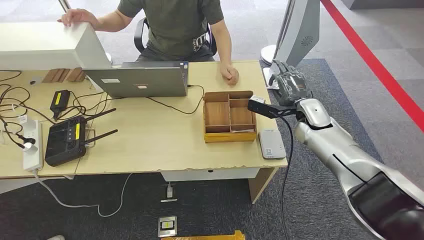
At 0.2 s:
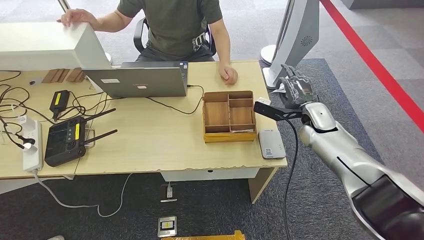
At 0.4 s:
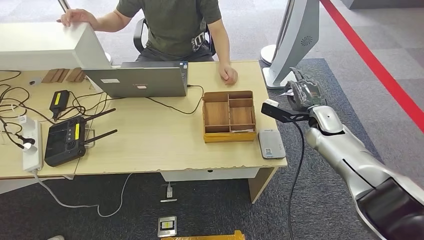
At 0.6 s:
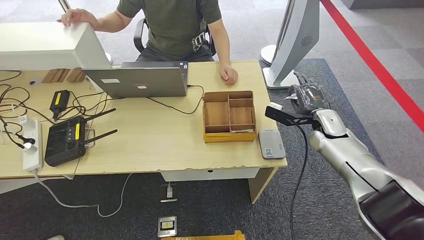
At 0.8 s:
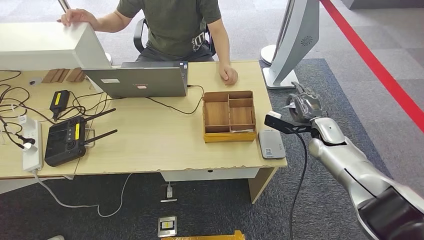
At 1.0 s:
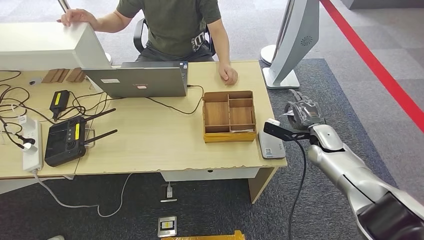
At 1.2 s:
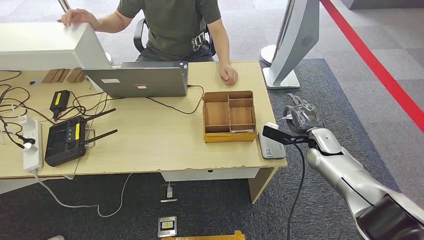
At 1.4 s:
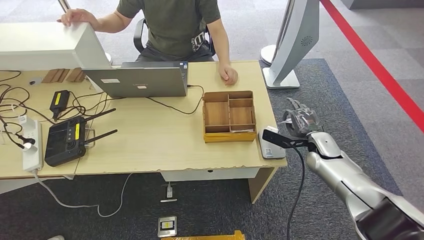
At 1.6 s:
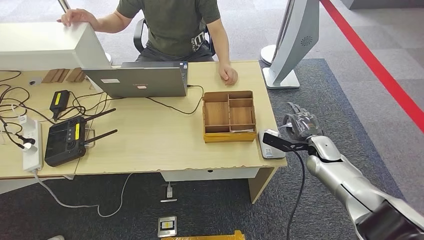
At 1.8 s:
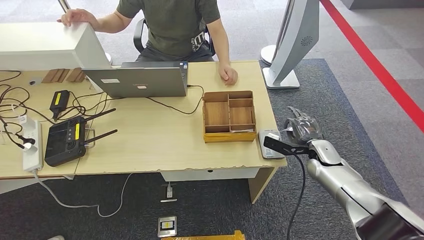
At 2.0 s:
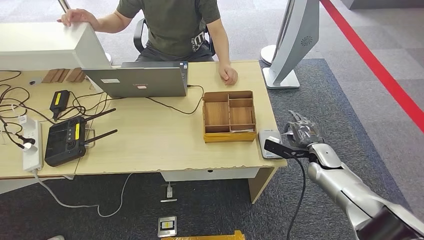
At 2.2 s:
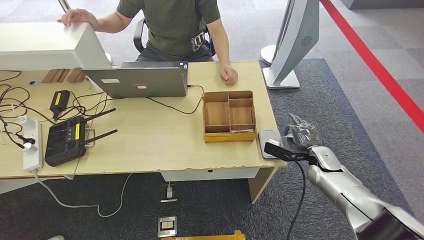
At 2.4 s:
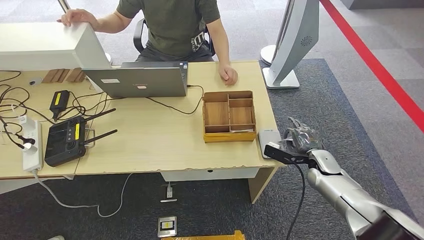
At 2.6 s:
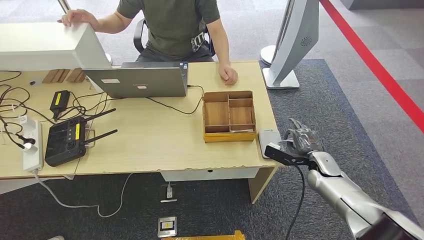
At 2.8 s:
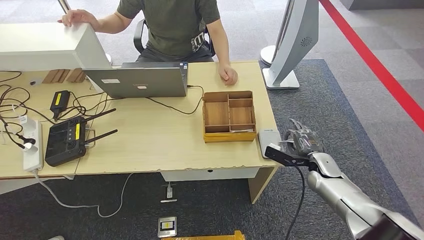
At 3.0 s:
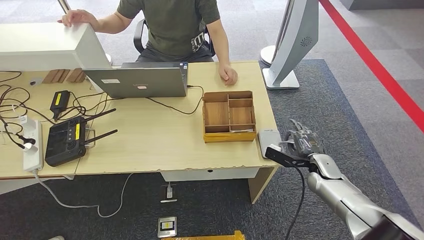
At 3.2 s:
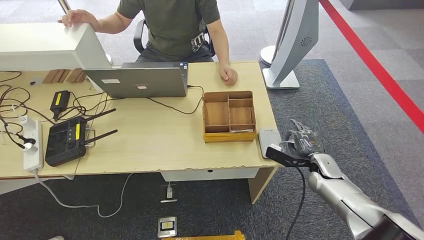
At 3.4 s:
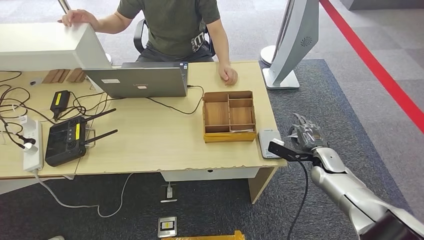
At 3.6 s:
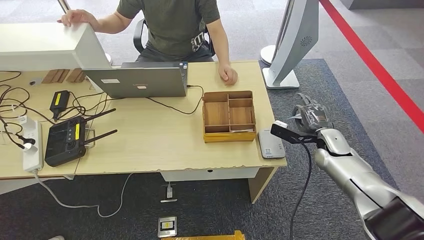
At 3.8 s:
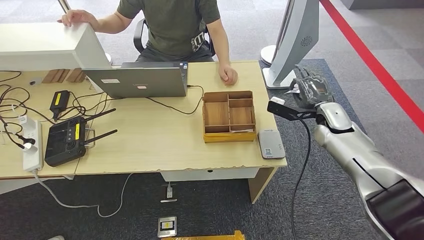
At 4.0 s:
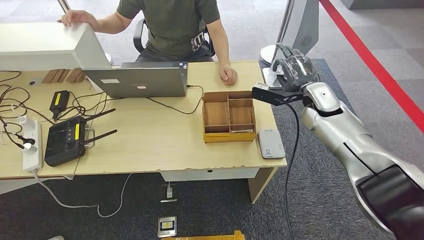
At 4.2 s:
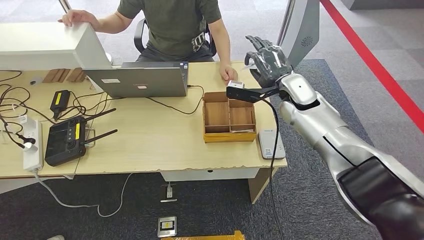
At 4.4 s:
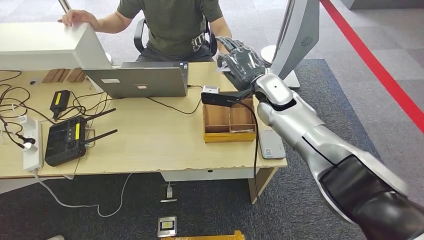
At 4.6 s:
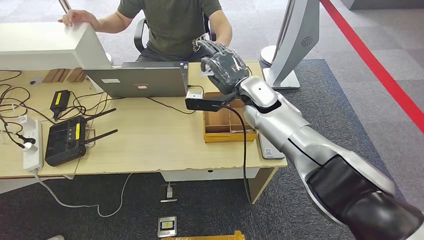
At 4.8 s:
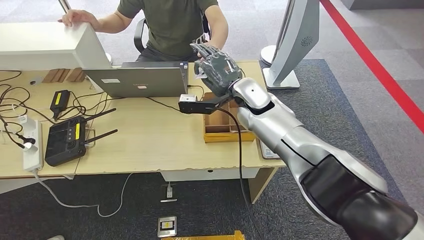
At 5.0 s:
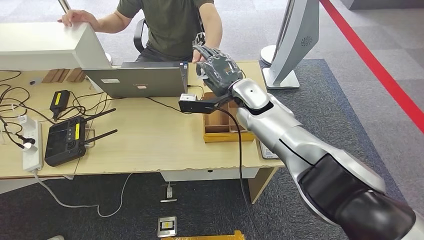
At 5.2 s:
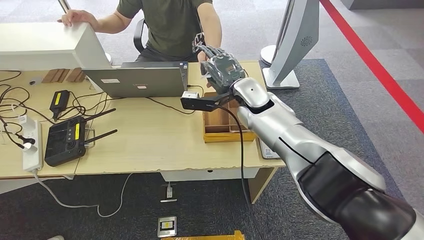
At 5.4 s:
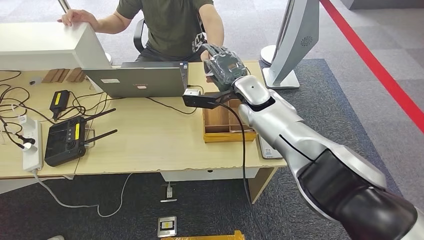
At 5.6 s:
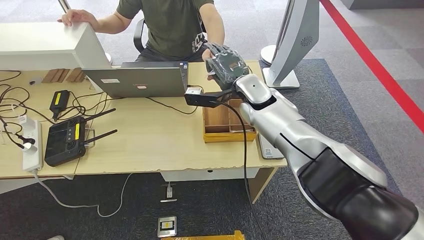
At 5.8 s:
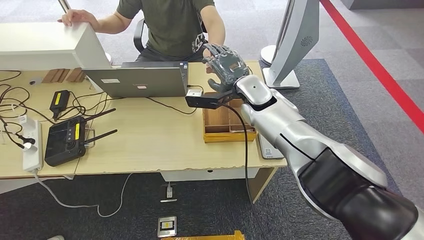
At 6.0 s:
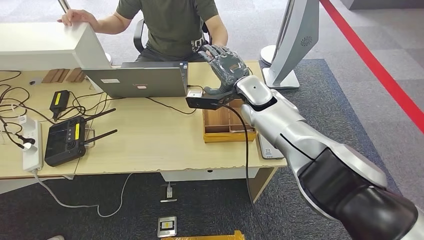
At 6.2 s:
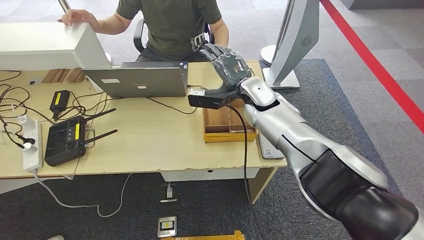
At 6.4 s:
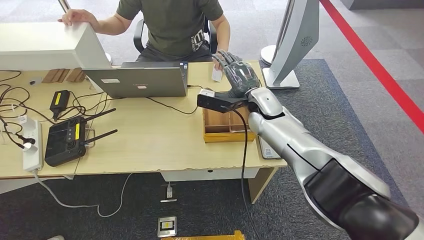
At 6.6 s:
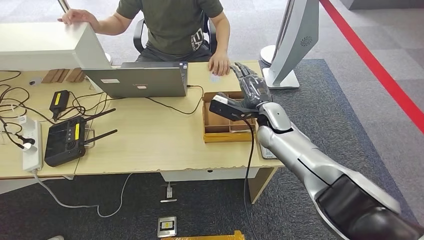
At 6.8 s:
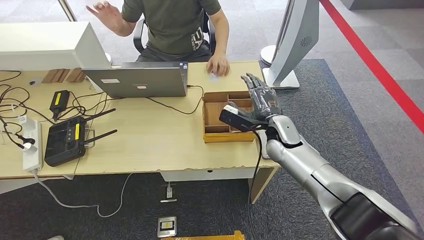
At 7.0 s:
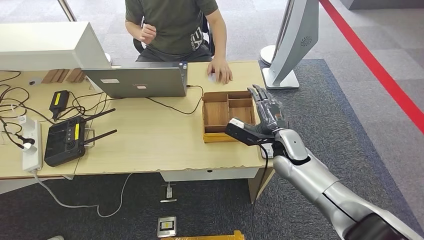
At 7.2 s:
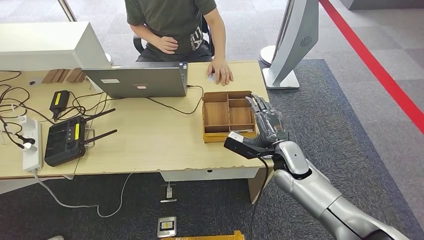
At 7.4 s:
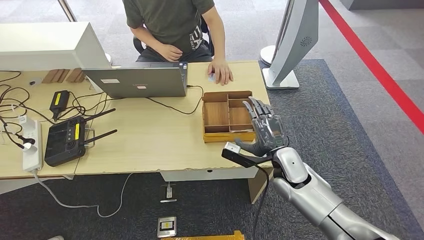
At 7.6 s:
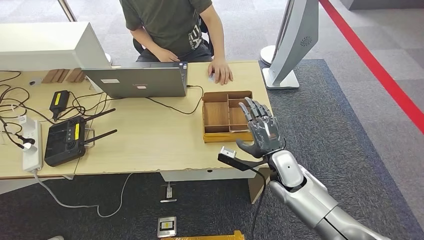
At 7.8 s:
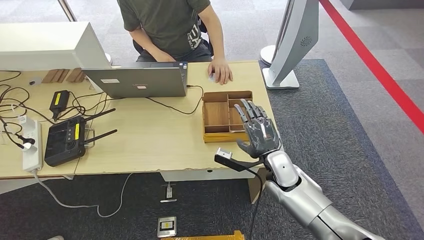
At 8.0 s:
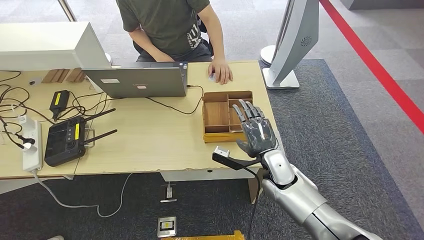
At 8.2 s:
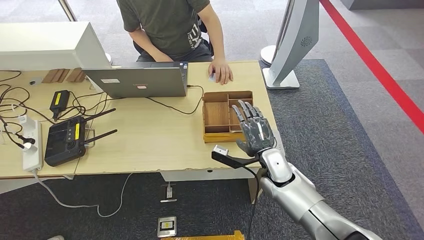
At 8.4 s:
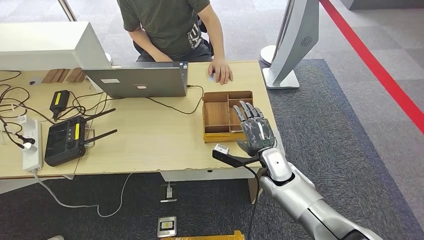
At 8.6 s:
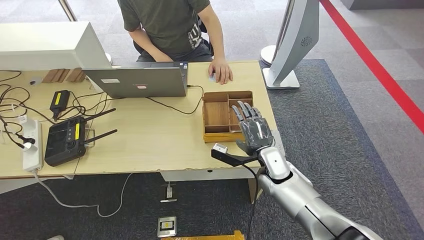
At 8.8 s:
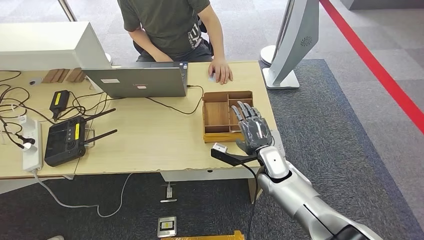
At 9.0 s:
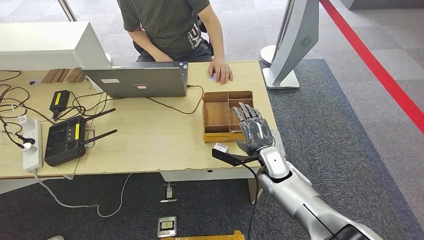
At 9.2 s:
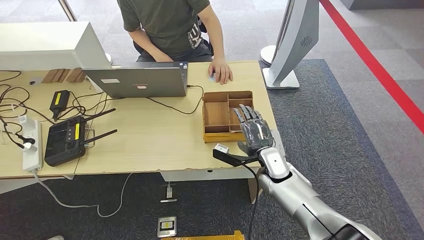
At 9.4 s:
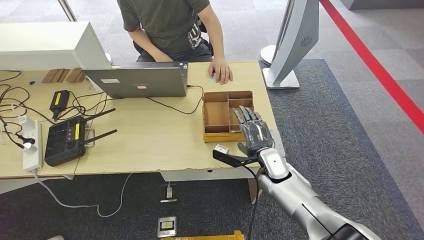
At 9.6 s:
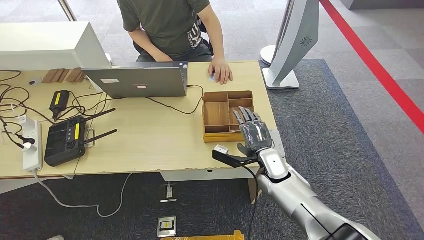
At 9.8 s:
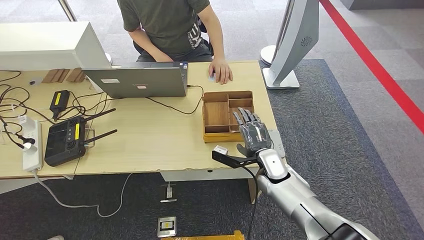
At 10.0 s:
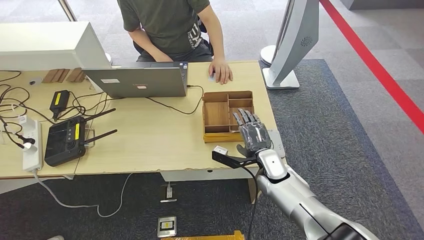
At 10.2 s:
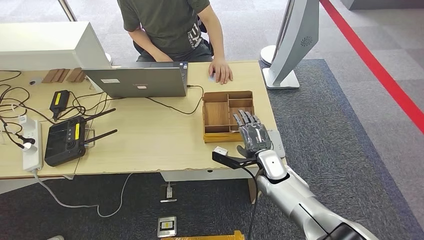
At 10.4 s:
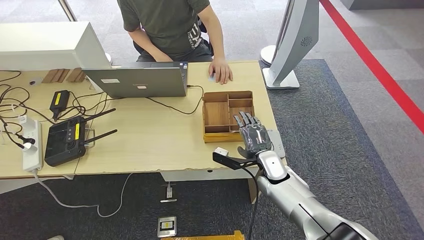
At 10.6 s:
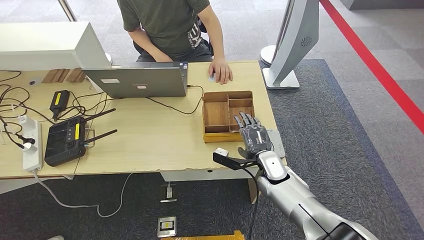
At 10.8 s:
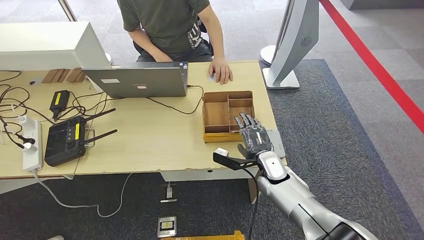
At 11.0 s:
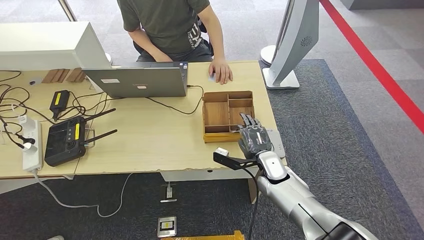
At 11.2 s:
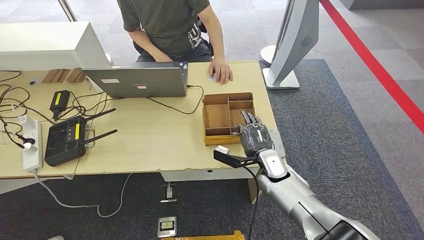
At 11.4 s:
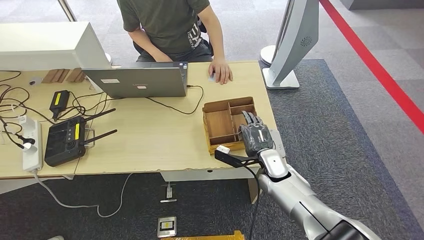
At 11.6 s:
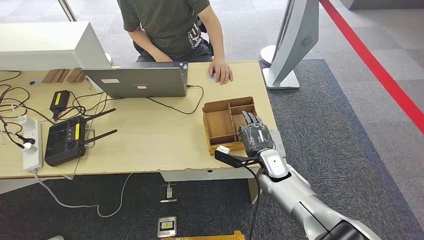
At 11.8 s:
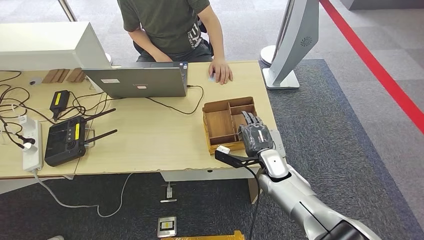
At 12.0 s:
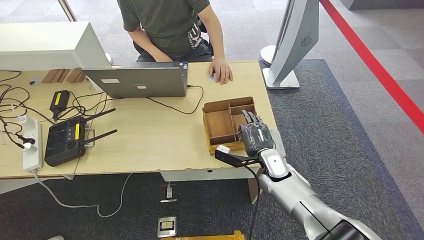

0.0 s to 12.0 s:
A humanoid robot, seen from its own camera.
Step, 0.0 to 1.0 s: Take the ID card from the person's hand.
Step, 1.2 to 2.6 s: Place the ID card on the card reader.
Step, 3.0 to 6.4 s: Hand the ID card to the person.
1.6 to 3.0 s: The right hand moves approximately 5 cm.
3.0 to 4.4 s: The right hand shifts some 30 cm upward, to the left and forward.
6.0 to 7.6 s: The right hand travels downward, backward and to the right by roughly 20 cm.
7.6 to 10.4 s: There are only small adjustments of the hands.
10.4 to 12.0 s: Both hands stay put.

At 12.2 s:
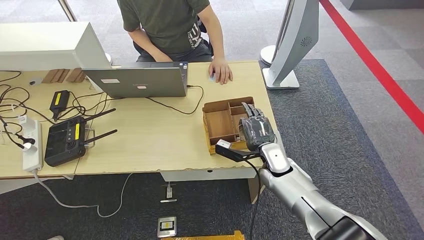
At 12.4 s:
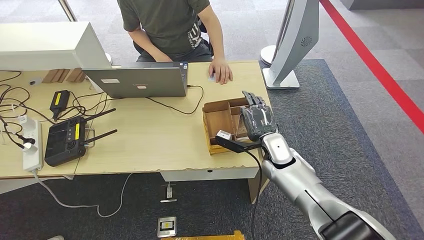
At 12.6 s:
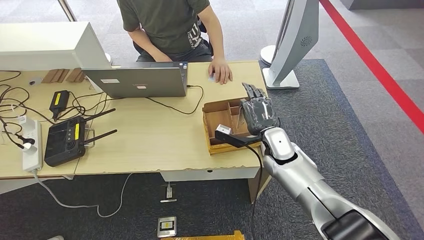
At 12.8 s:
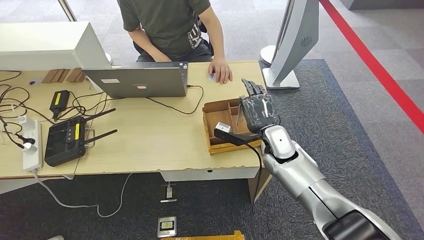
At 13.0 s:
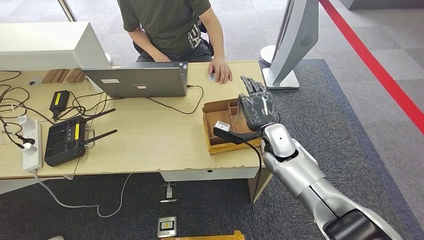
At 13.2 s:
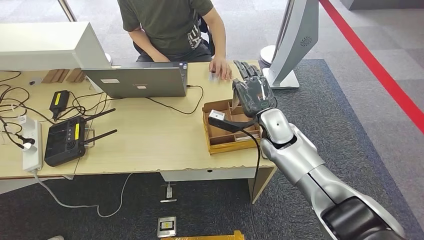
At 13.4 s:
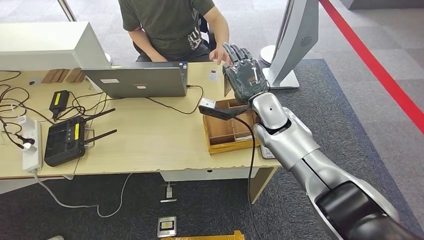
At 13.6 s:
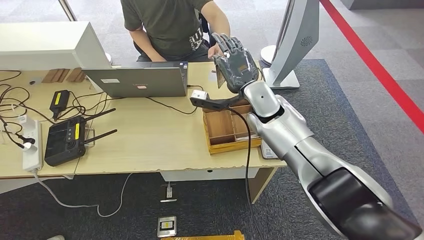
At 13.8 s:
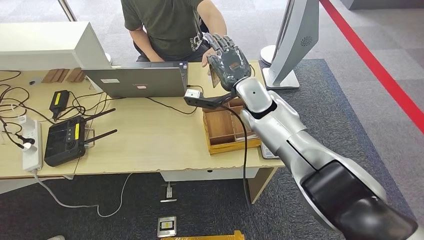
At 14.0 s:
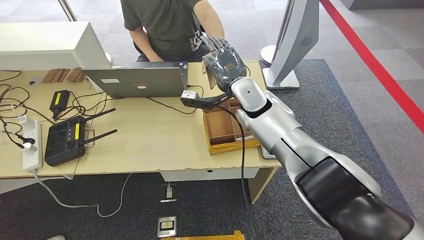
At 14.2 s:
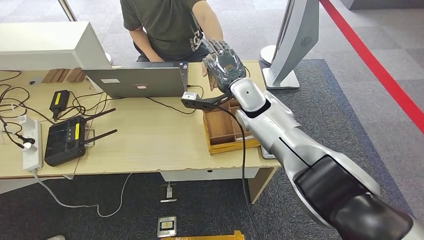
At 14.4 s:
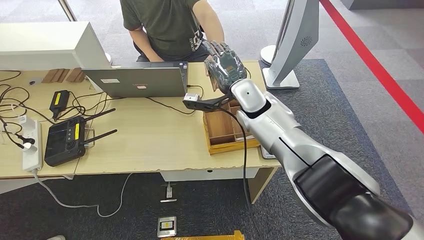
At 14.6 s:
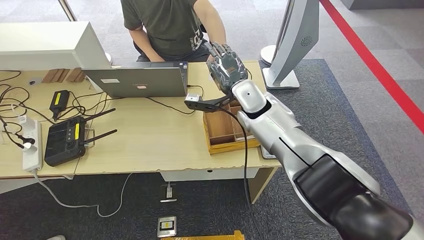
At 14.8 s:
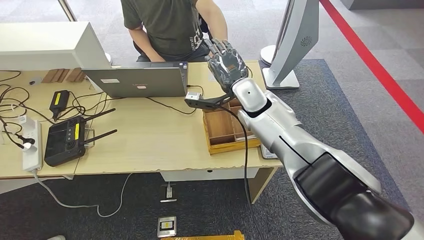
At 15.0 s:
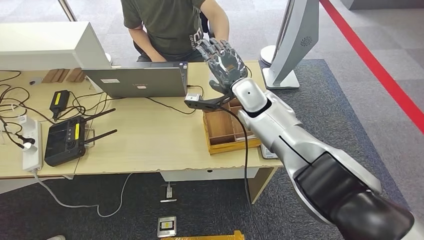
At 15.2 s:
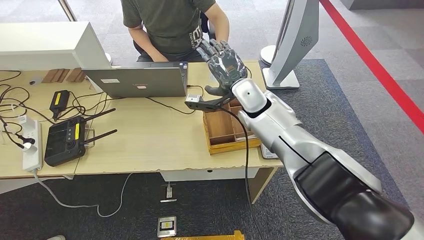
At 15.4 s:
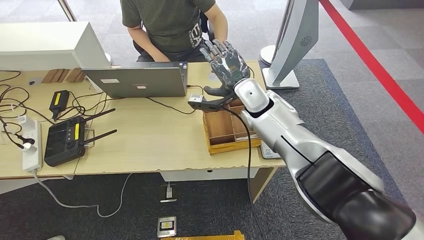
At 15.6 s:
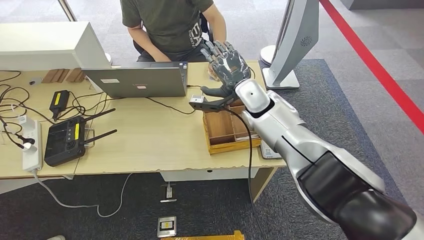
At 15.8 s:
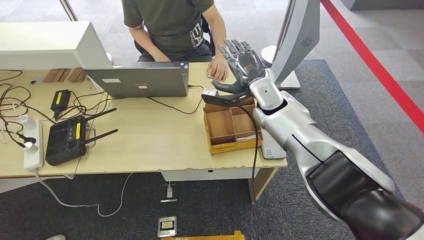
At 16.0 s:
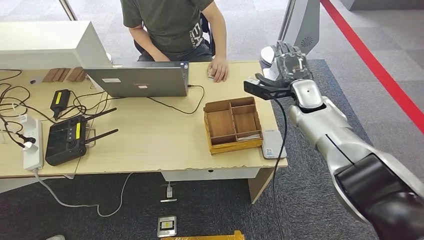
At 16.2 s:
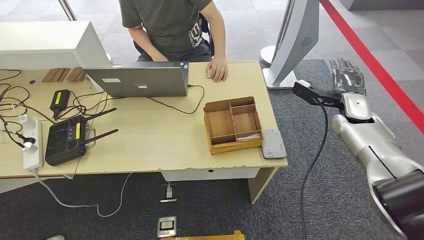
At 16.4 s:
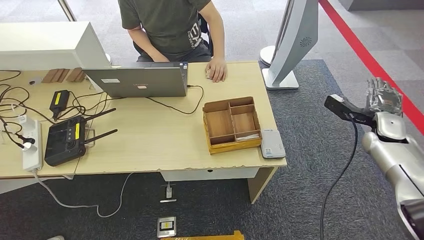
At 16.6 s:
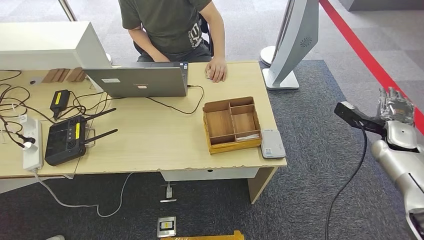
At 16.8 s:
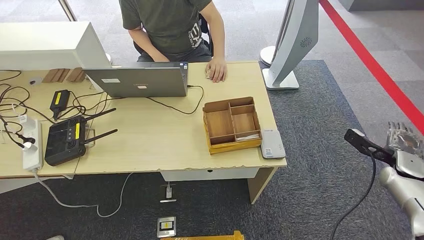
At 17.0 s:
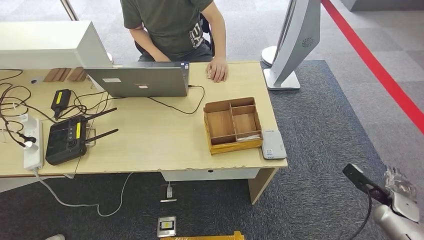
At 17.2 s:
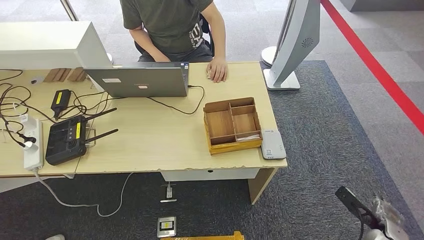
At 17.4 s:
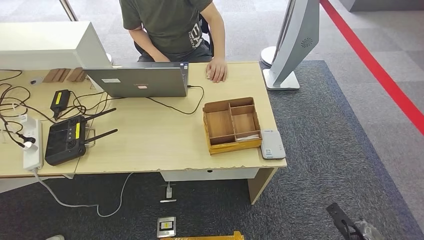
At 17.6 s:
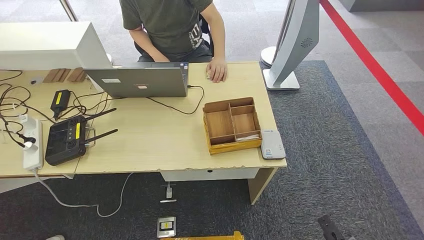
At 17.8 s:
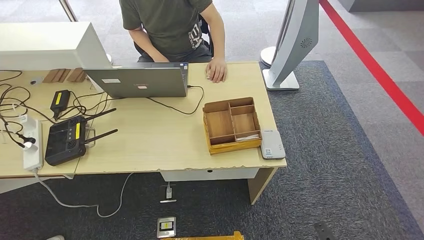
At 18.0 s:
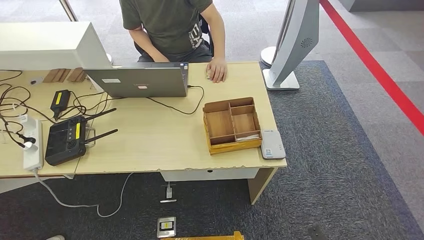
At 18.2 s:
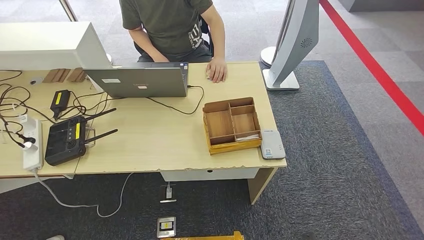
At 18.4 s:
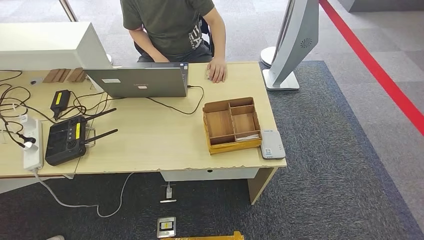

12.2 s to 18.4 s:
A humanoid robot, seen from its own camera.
Step, 14.0 to 18.4 s: Hand the room key to the person.
12.2 to 13.8 s: The right hand shifts some 20 cm upward and forward.
13.8 to 15.4 s: The hands stay close to where they were, moving slightly.
15.4 to 16.8 s: The right hand goes roughly 40 cm to the right and backward.
16.8 to 18.4 s: The right hand moves backward, downward and to the left, approximately 40 cm.
